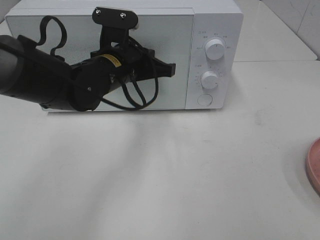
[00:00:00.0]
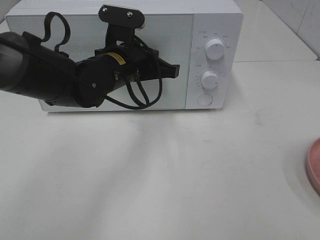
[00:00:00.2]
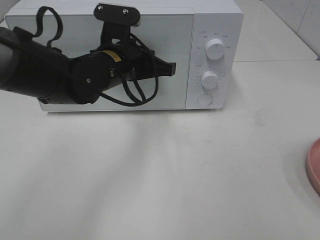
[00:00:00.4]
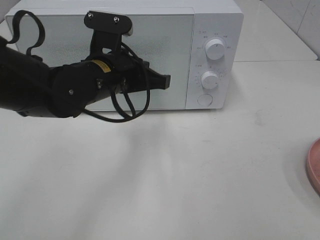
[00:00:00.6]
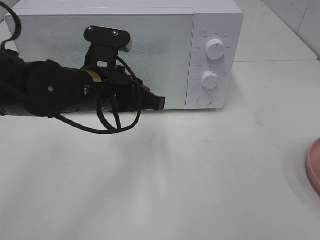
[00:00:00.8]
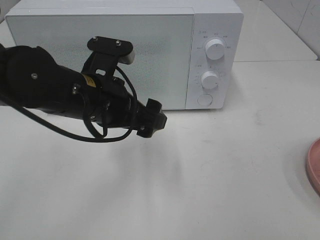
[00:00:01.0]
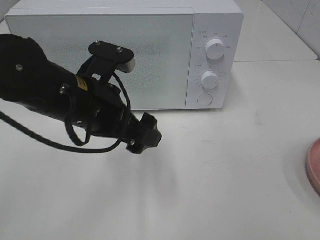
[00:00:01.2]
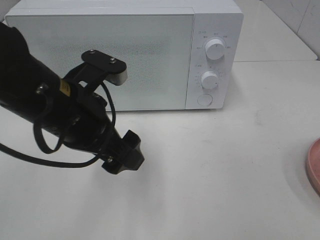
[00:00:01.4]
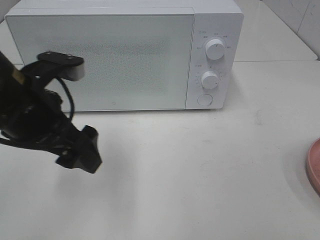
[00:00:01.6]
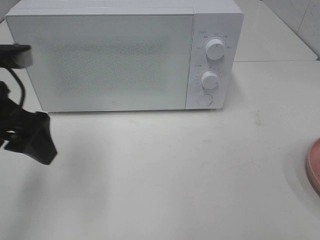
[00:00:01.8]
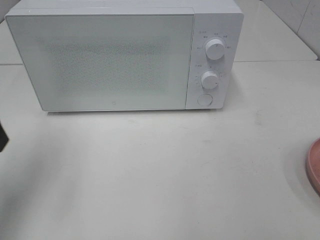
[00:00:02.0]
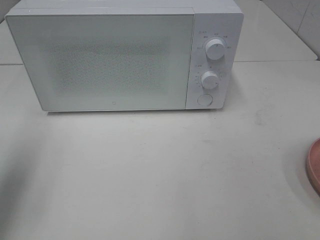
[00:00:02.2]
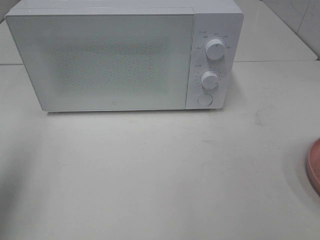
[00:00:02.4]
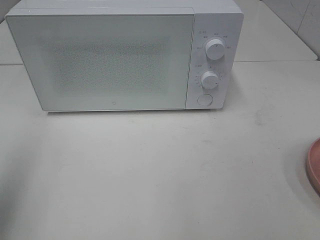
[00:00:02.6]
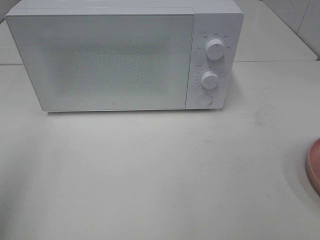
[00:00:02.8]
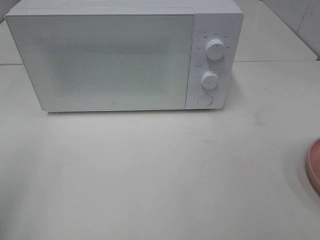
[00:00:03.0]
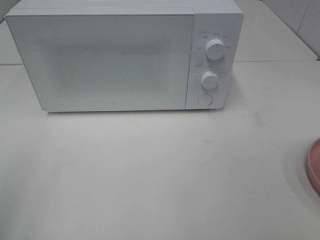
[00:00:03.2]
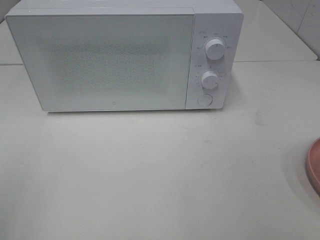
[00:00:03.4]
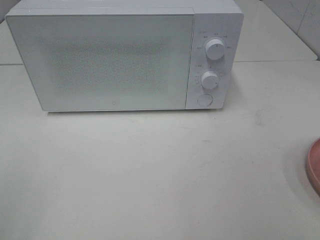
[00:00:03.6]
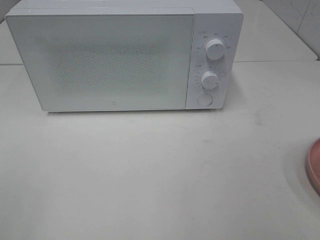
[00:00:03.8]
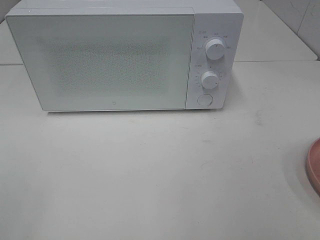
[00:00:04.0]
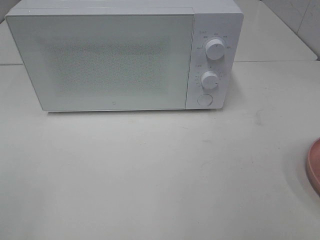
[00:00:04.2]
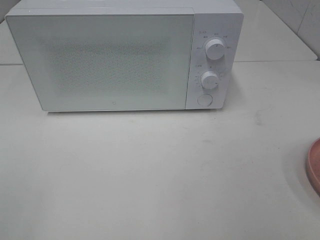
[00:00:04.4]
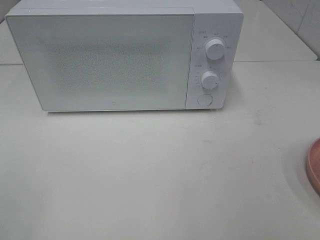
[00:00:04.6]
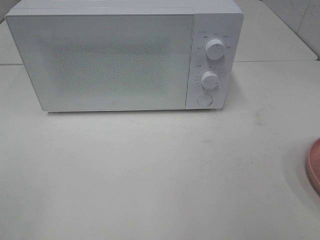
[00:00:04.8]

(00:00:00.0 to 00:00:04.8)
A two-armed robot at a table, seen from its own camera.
Task of the whole recording: Heat the burger.
00:00:00.0 - 00:00:01.6: The left gripper is displaced backward, to the left and upward by approximately 15 cm, and opens.
00:00:01.6 - 00:00:03.2: The left gripper shifts some 20 cm backward and to the left.
